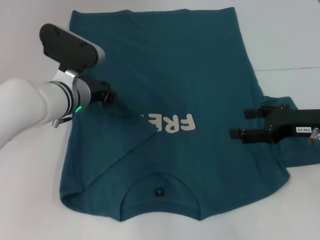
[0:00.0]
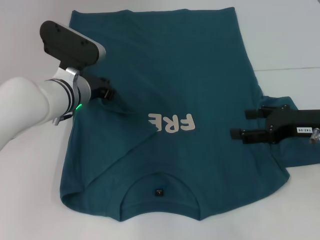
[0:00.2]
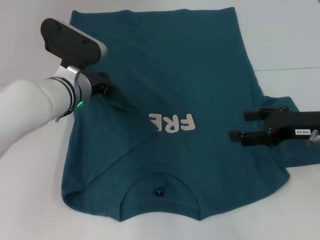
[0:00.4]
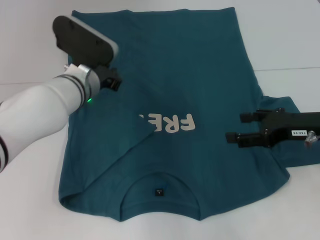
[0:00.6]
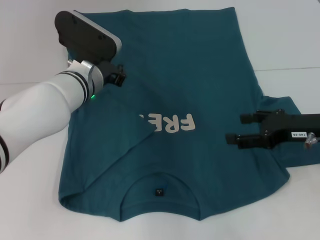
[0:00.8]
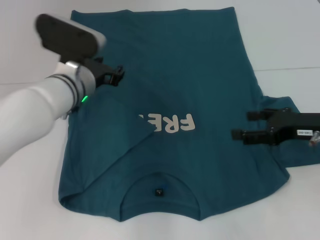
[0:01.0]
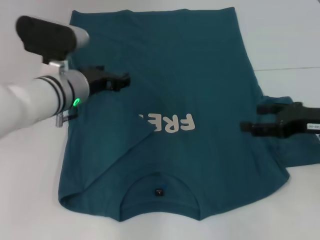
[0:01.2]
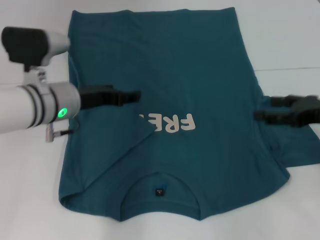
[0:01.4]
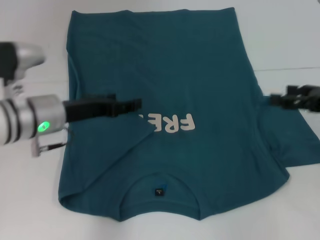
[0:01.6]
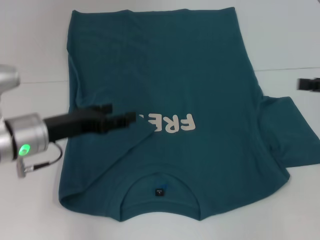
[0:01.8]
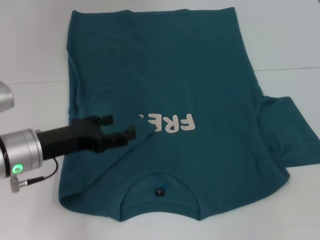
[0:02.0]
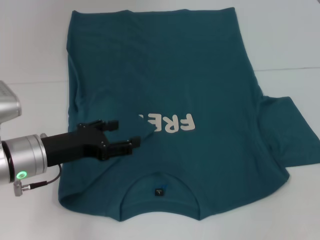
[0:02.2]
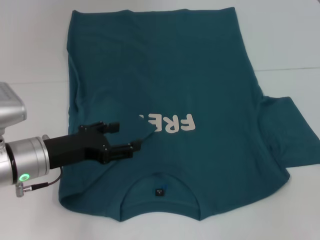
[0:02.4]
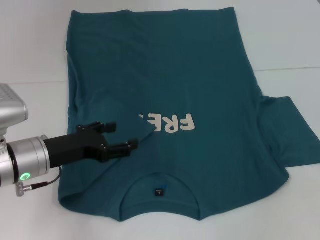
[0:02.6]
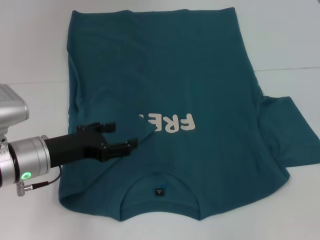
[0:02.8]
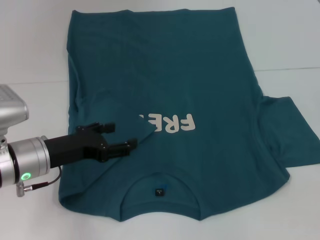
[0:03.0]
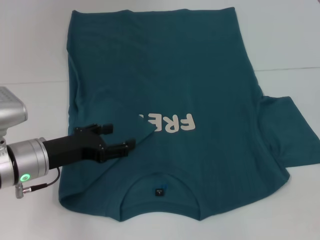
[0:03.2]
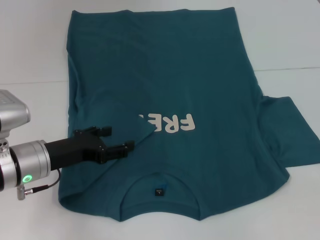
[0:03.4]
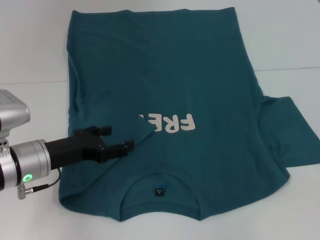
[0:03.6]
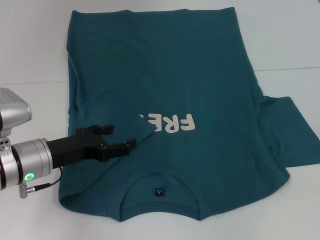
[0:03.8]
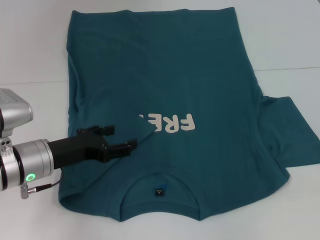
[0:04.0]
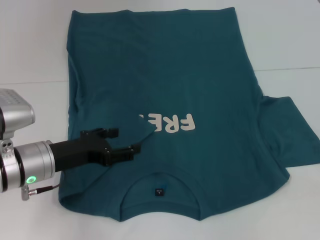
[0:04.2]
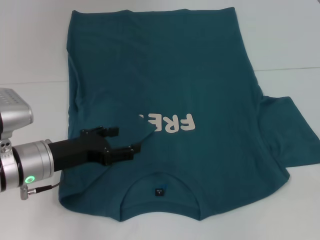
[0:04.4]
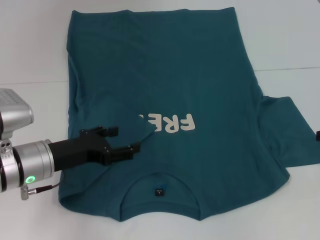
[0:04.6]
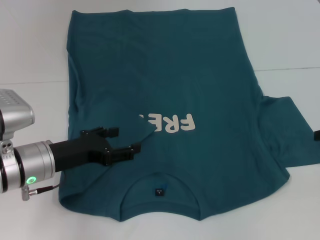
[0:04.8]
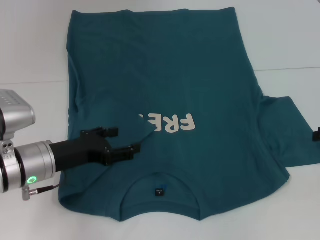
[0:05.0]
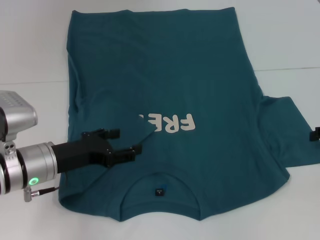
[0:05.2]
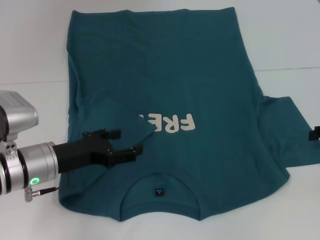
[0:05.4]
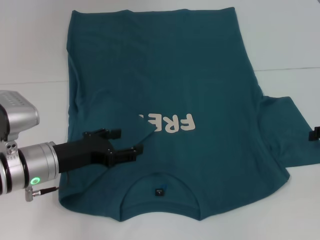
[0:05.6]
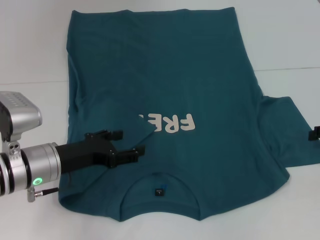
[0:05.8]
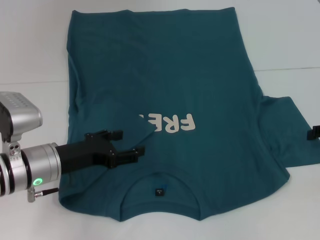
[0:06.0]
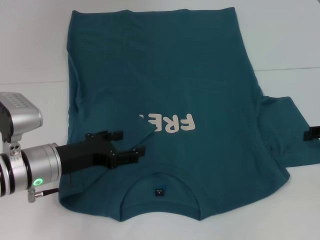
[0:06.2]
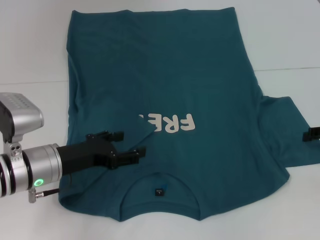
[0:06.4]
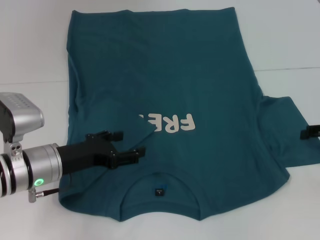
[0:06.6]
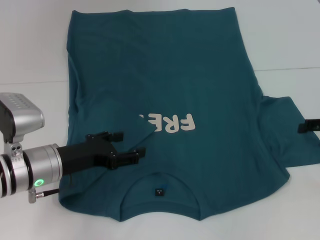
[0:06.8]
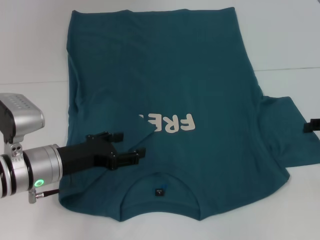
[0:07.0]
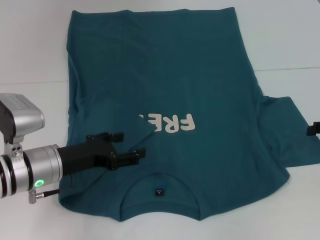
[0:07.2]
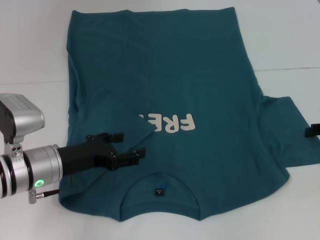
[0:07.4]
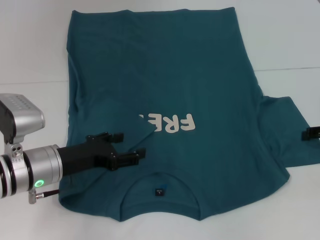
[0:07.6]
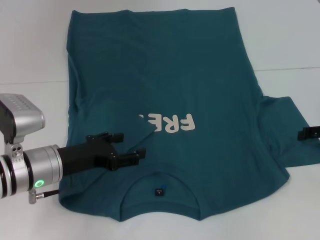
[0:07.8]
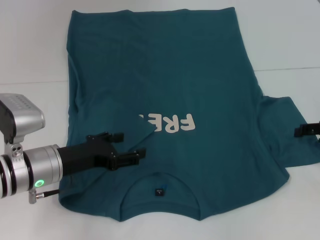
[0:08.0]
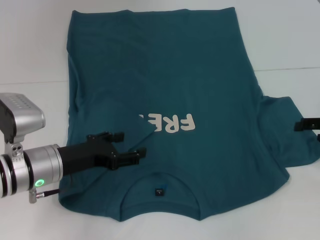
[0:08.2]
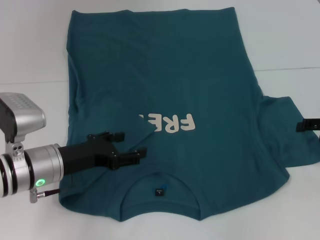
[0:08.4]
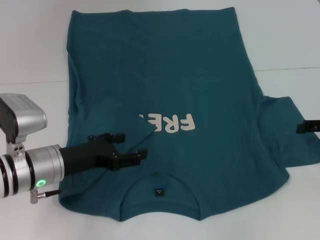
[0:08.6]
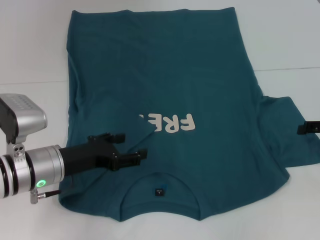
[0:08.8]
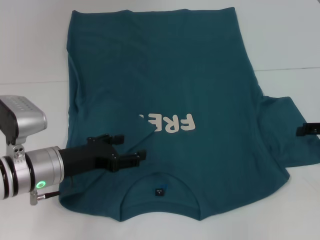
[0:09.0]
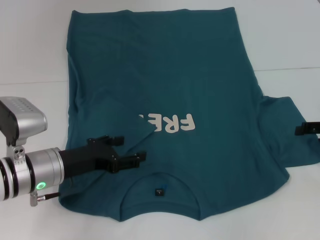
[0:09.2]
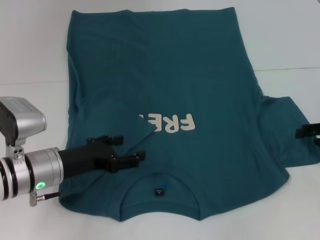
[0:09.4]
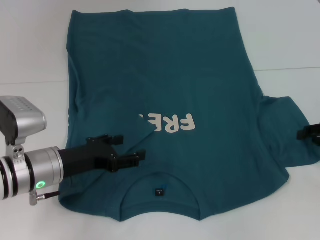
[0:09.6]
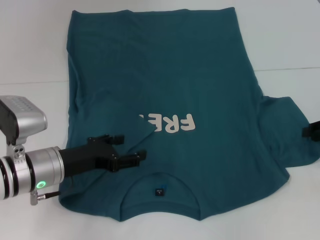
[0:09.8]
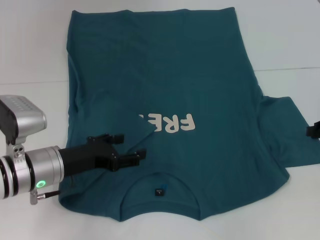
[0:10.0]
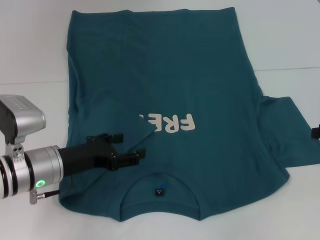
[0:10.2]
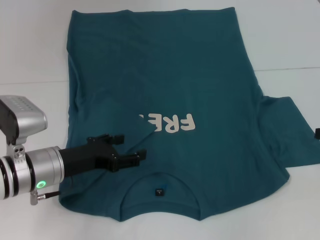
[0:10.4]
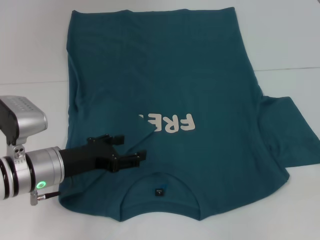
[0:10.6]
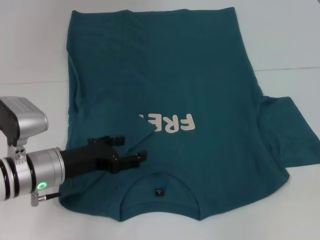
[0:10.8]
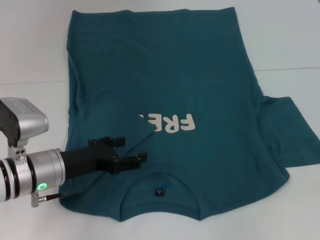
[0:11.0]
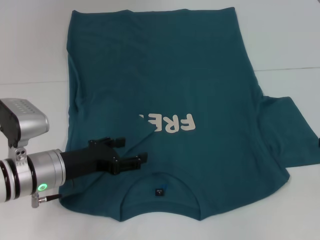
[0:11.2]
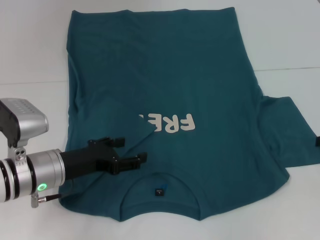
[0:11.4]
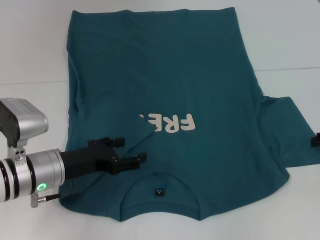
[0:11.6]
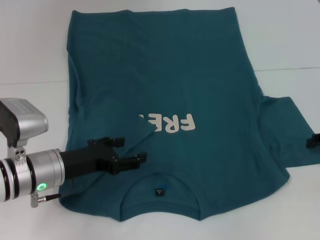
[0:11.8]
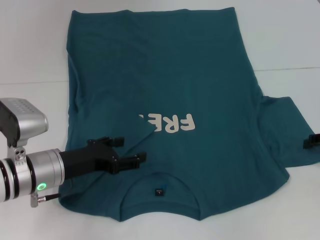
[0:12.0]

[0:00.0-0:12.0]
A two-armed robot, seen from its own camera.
0:00.0 to 0:01.6: The left gripper travels backward and to the left by about 10 cm, and opens its fingers; the right gripper travels to the right by approximately 5 cm.
0:01.6 to 0:03.0: The left gripper changes place by roughly 5 cm. The right gripper shifts roughly 5 cm upward.
0:04.4 to 0:09.0: The grippers stay close to where they were, moving slightly.

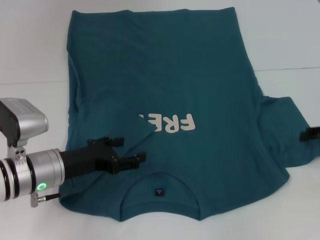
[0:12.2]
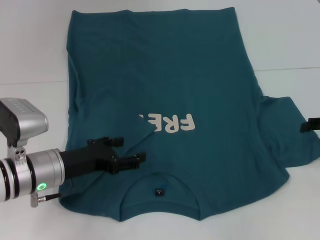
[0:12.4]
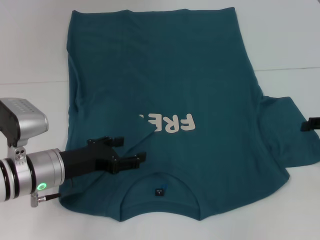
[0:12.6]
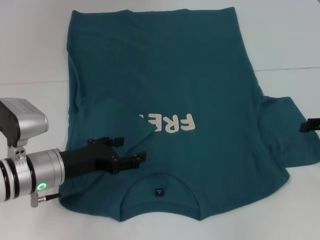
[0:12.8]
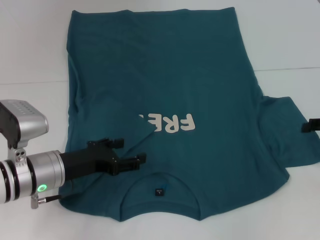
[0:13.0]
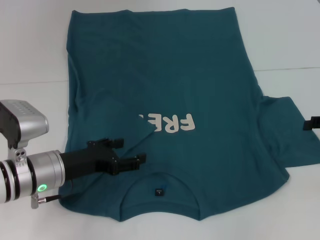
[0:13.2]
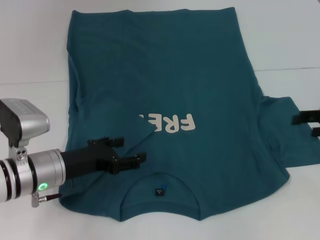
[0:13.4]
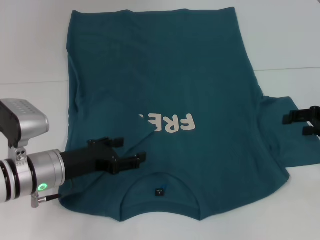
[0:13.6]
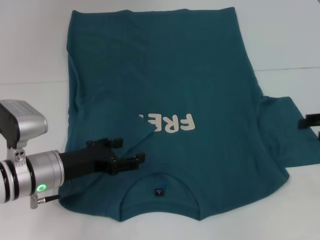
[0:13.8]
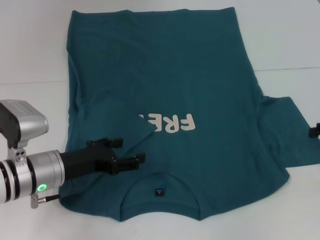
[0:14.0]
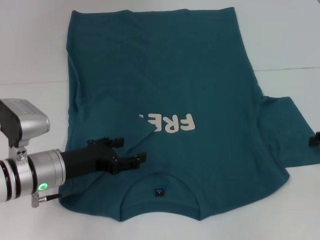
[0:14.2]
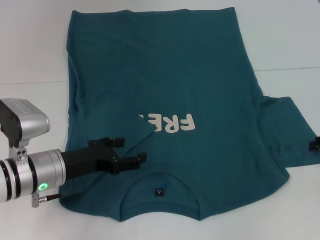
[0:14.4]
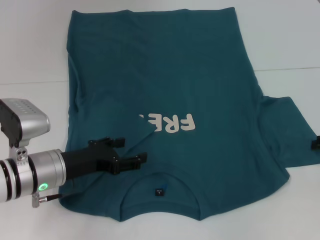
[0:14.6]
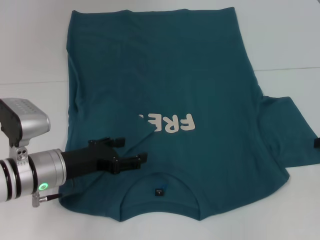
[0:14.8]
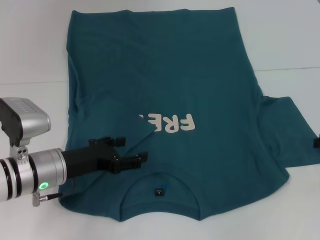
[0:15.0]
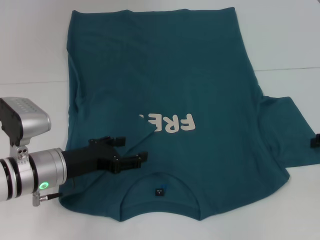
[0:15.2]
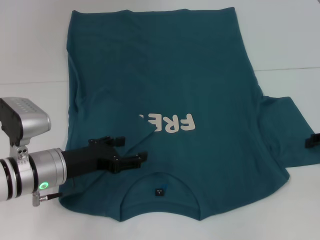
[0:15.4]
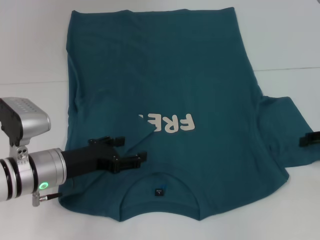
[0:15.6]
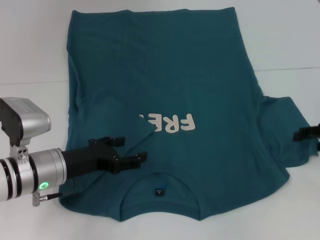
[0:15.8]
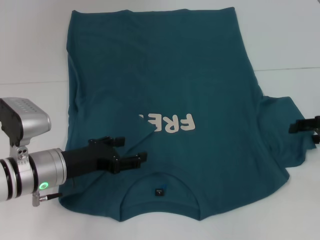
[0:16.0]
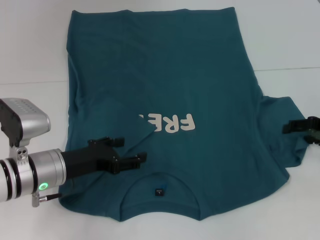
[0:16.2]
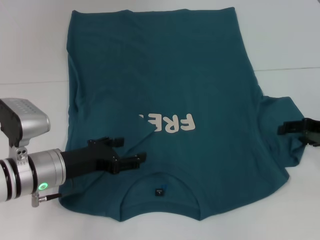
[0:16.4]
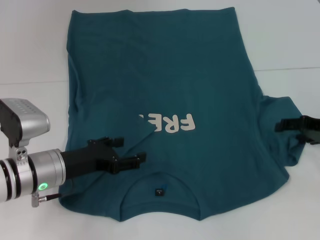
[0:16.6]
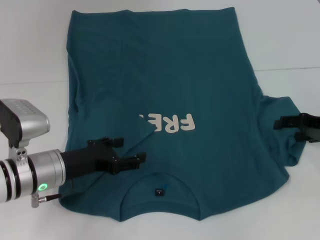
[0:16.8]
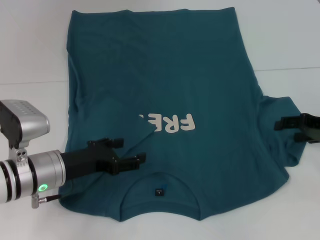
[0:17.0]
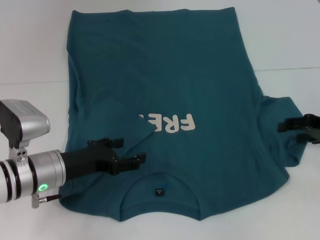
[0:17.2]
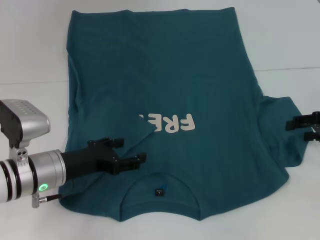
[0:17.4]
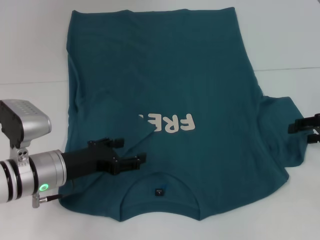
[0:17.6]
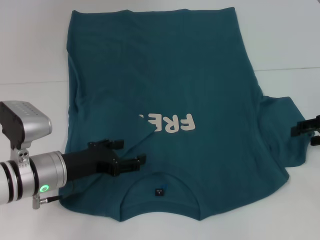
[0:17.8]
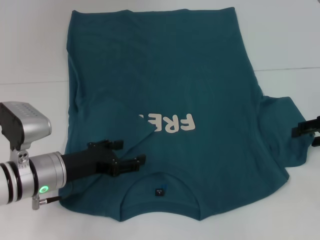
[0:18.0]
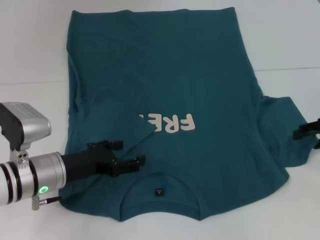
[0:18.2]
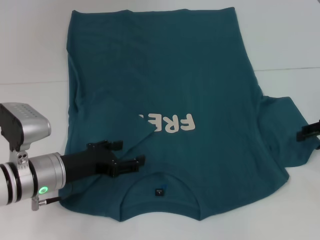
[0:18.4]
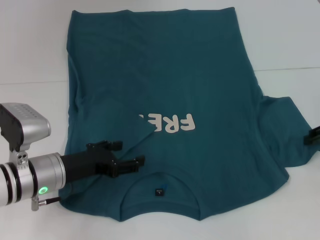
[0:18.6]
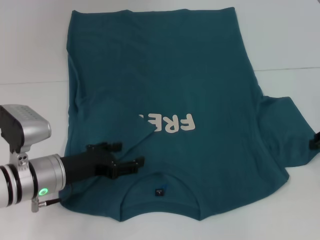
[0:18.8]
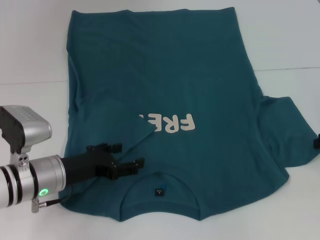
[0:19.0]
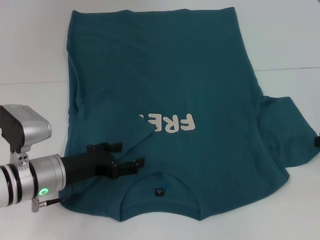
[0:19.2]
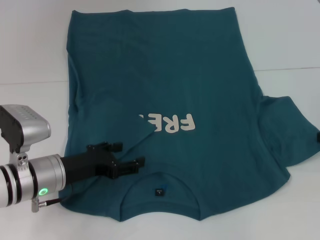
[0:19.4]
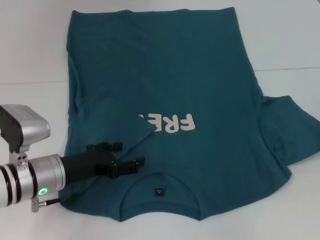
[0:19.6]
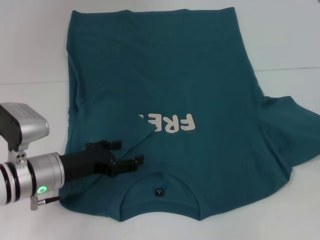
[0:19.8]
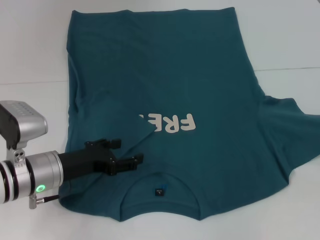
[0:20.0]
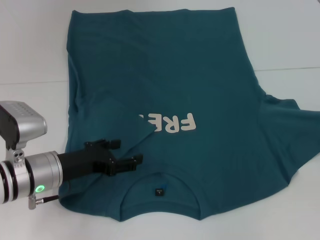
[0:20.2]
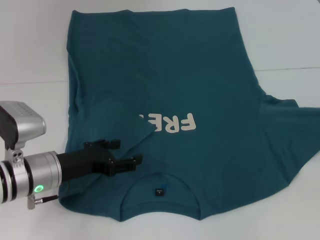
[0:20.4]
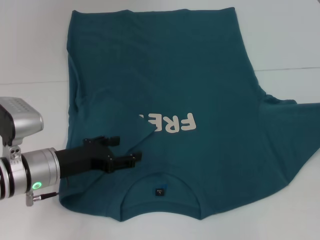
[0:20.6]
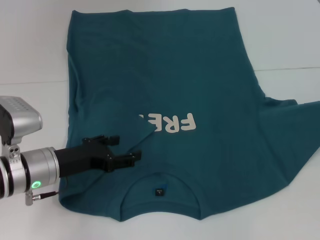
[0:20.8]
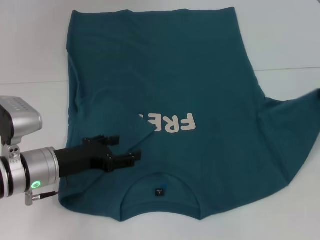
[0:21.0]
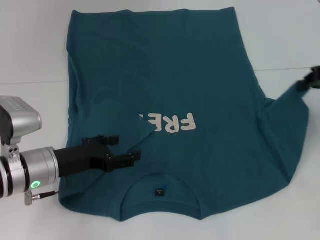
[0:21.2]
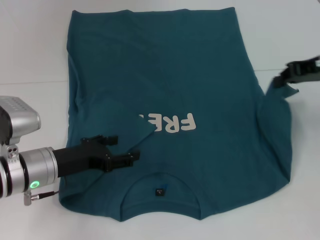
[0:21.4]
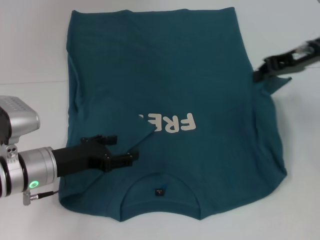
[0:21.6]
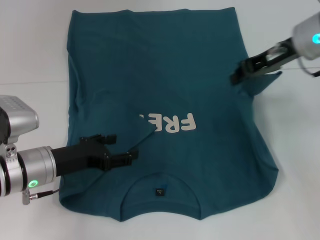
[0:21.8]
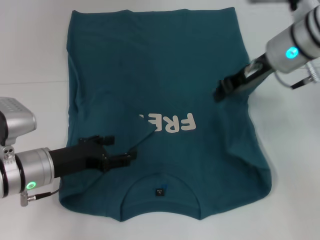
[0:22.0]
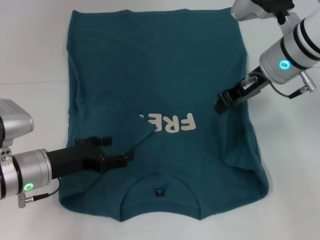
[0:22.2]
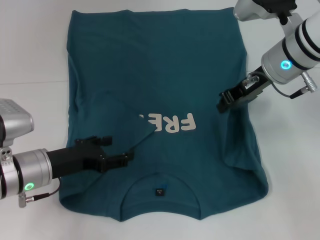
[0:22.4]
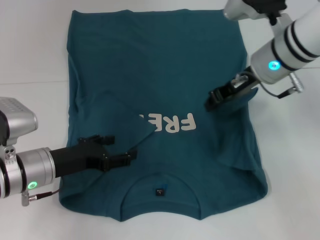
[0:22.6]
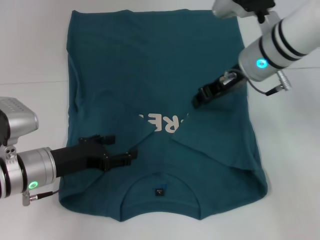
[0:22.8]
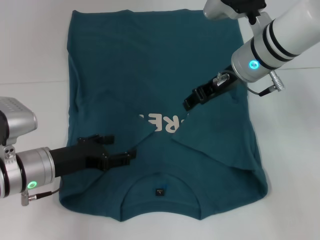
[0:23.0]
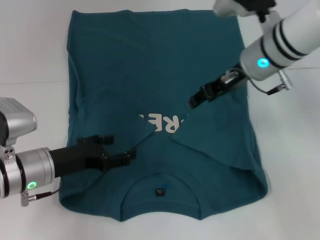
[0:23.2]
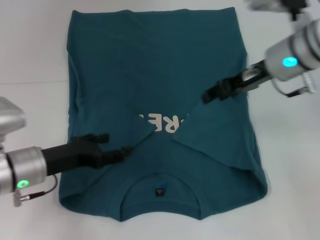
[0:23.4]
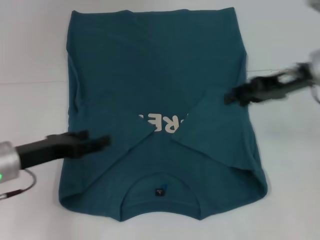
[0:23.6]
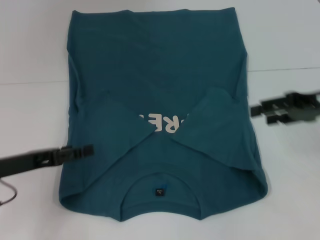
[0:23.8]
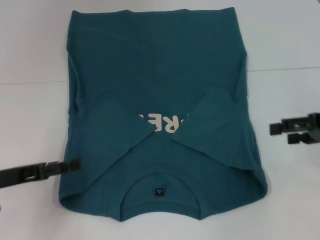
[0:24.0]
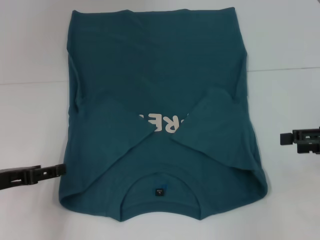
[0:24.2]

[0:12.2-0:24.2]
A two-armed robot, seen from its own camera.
Step, 0:12.2 to 0:23.0: Fold the bottom right sleeve to the right.
0:12.2 to 0:15.2: There are only small adjustments of the grippers.
0:15.2 to 0:16.6: The right gripper moves about 5 cm.
0:16.6 to 0:18.2: There are only small adjustments of the grippers.
0:18.2 to 0:19.8: The right gripper closes up.
0:19.8 to 0:21.2: The right gripper goes roughly 10 cm upward and to the left.
0:21.2 to 0:22.6: The right gripper moves to the left, about 15 cm.
0:22.6 to 0:24.2: The left gripper shifts roughly 10 cm to the left. Meanwhile the right gripper is displaced to the right and backward by roughly 20 cm, and opens its fingers.
